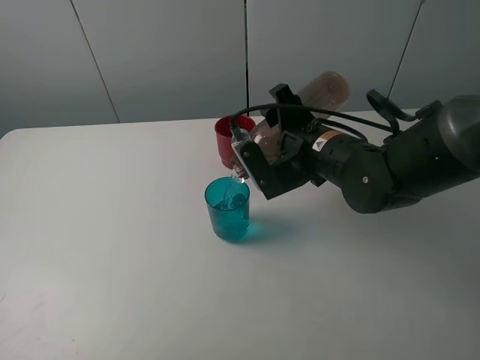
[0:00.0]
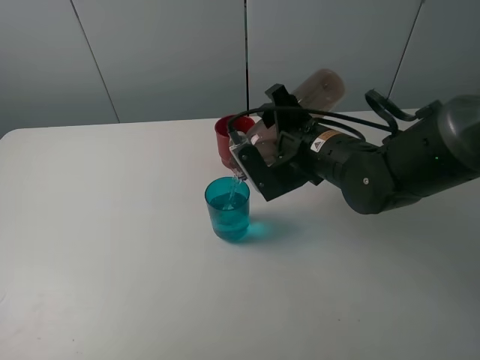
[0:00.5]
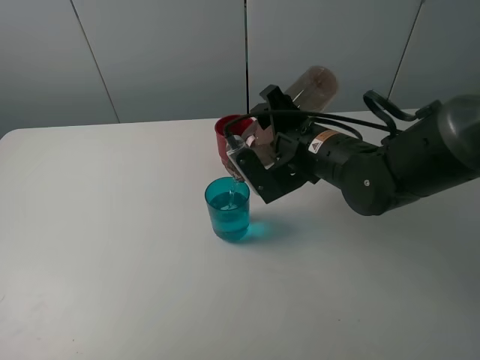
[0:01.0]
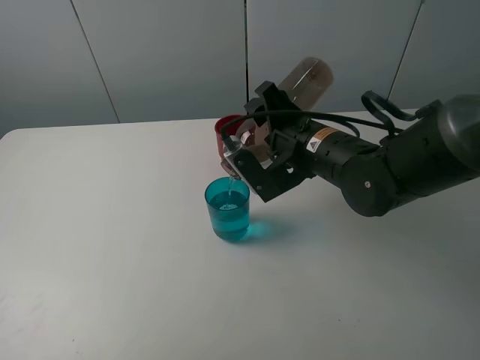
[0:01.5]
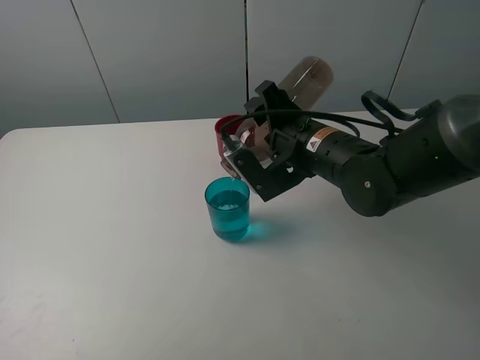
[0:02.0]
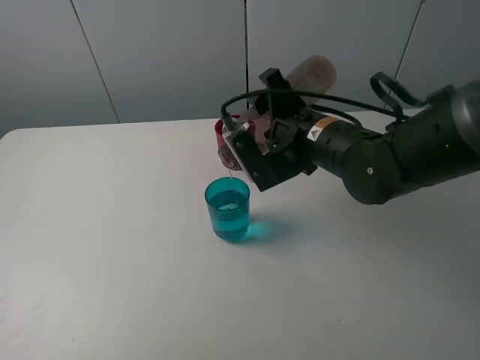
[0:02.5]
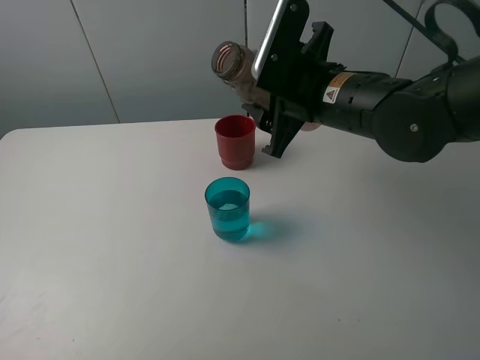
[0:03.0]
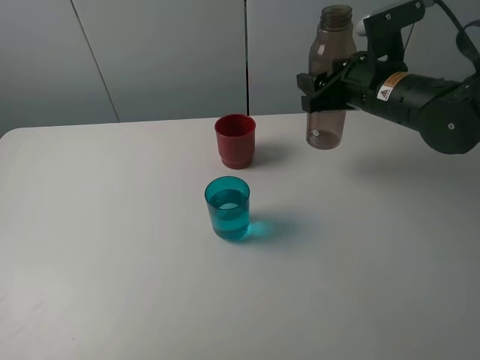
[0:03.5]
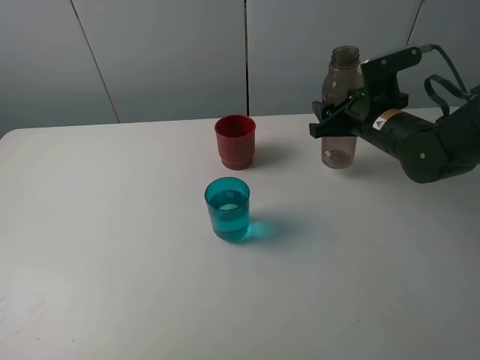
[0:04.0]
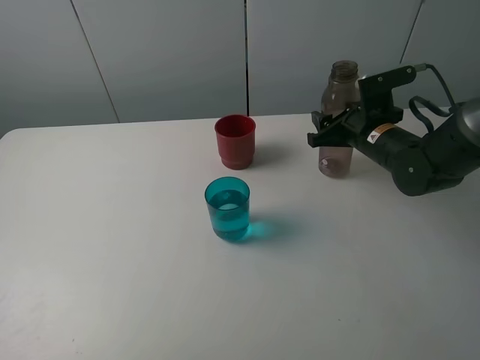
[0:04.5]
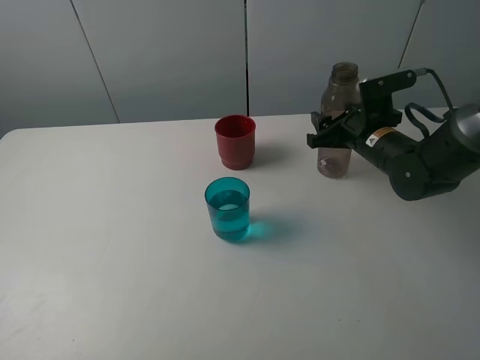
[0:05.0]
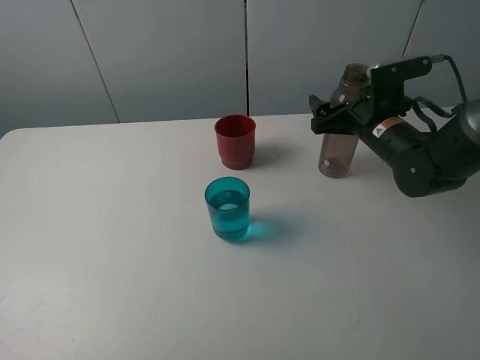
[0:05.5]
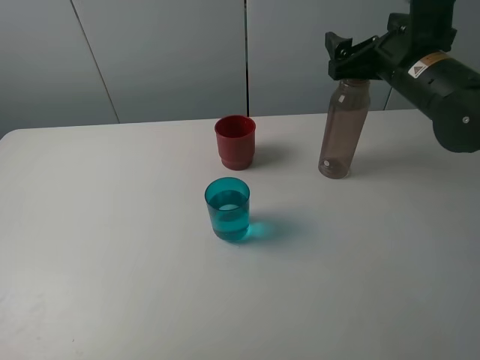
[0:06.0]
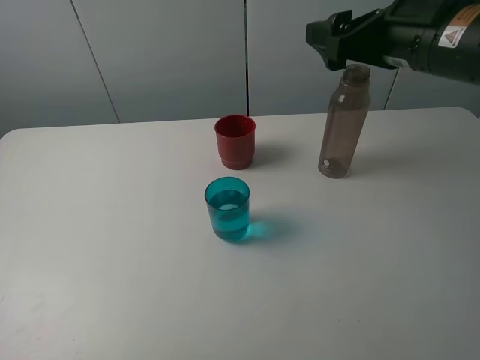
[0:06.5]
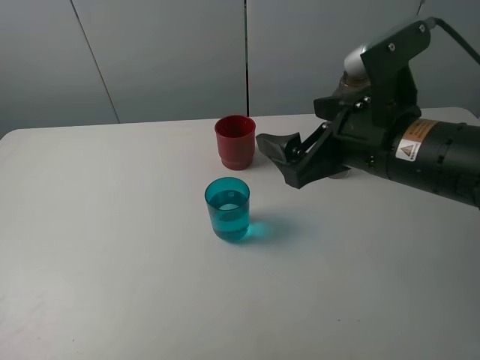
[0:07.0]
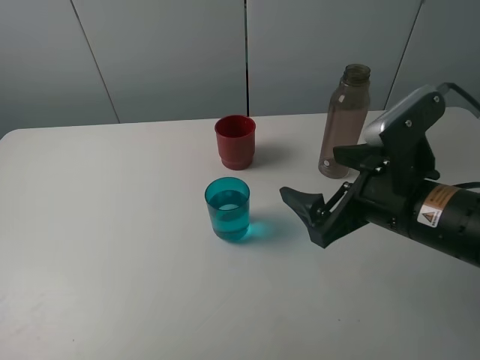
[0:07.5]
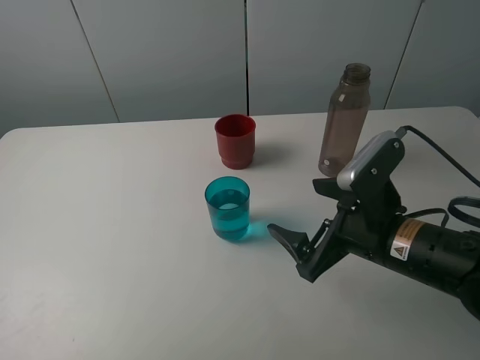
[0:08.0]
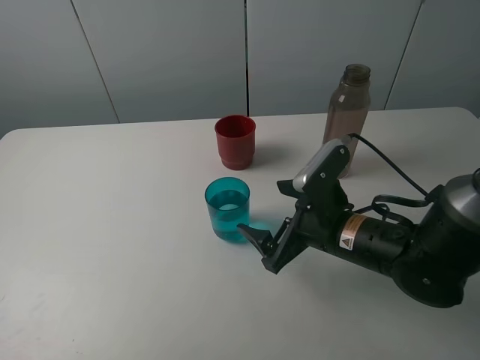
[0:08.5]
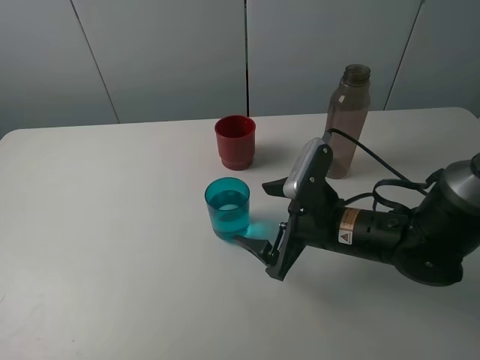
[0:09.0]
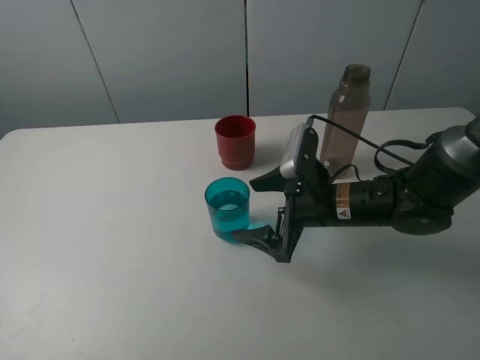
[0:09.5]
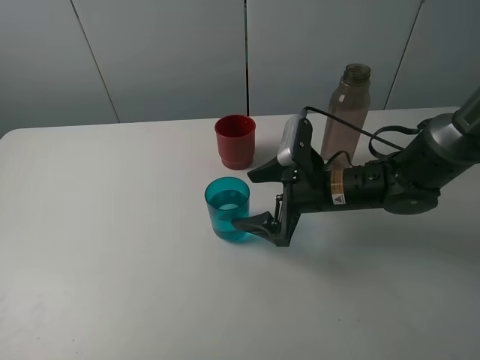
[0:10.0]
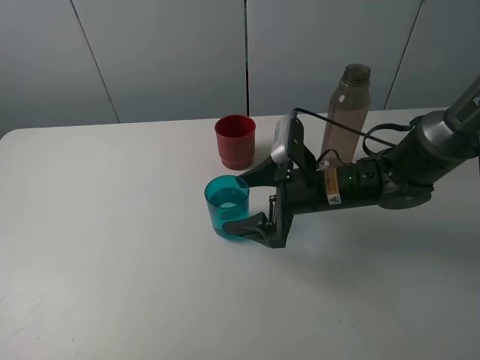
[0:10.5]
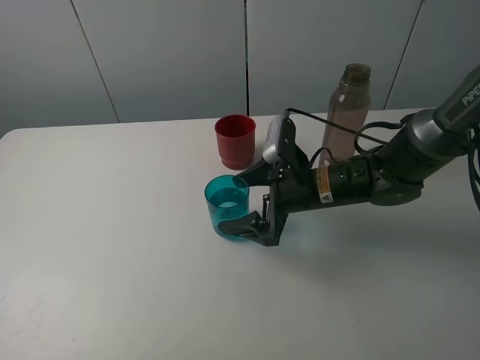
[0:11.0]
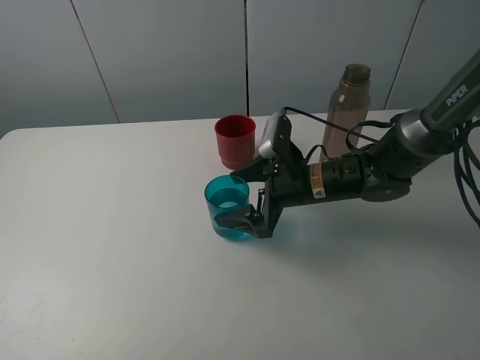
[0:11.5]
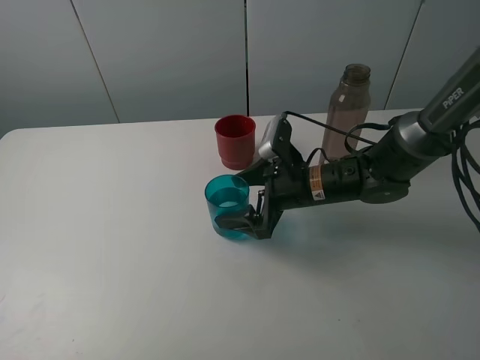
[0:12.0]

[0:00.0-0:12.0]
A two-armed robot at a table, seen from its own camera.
Task of the whole recording: pick up the bottle and pour water into the cup, then pick up the cup containing water and pour it into another cup.
Step, 0:00.0 to 0:02.0: Pour water from brown bottle to blue cup with the right gripper.
Step, 0:02.5 to 0:05.0: Place the brown bottle with the right gripper.
0:00.0 to 0:02.0: There are only small adjustments of the grippers.
0:02.0 to 0:04.0: The right gripper is displaced to the right and forward by about 15 cm.
0:04.0 to 0:06.0: The right gripper heads upward, covering about 10 cm, and opens up.
0:06.0 to 0:08.0: The right gripper shifts some 20 cm backward and downward.
0:08.0 to 0:10.0: The right gripper heads forward, covering about 10 cm.
0:10.0 to 0:12.0: The grippers make only small movements.

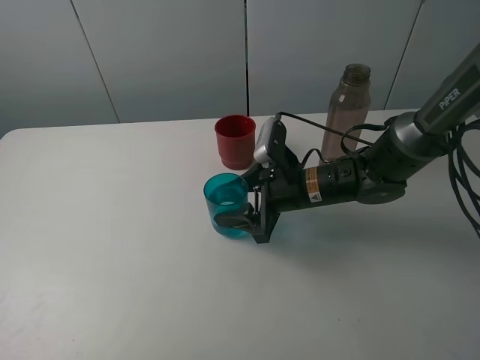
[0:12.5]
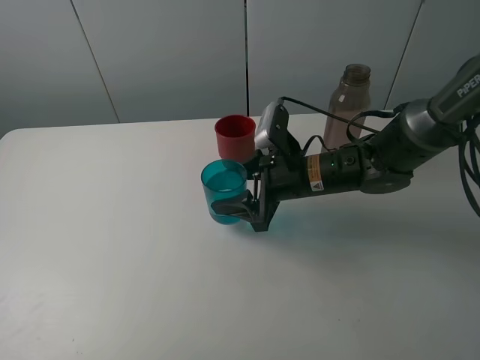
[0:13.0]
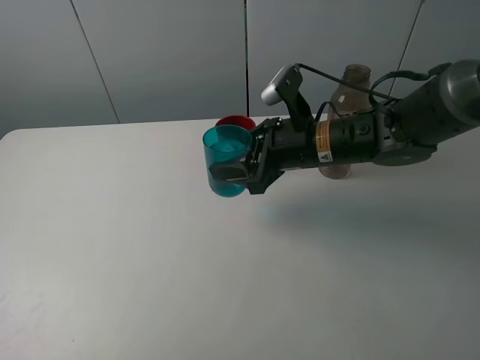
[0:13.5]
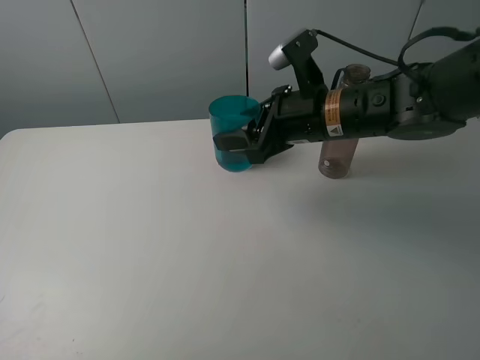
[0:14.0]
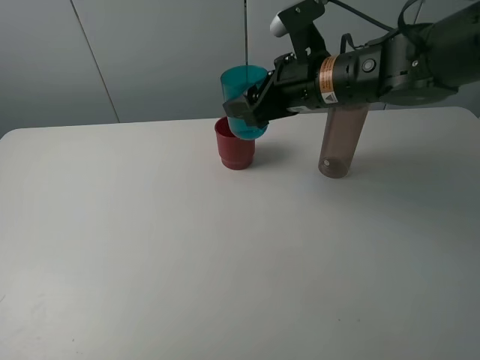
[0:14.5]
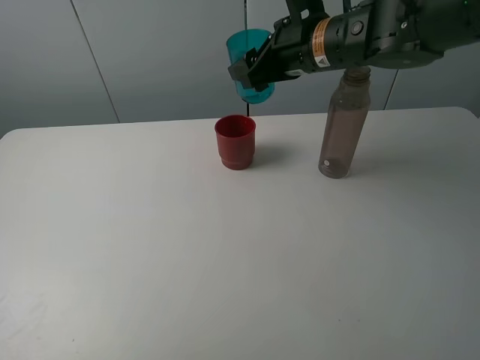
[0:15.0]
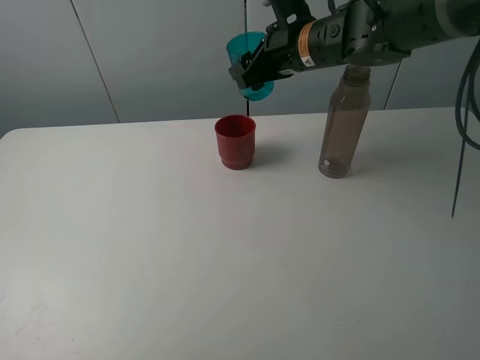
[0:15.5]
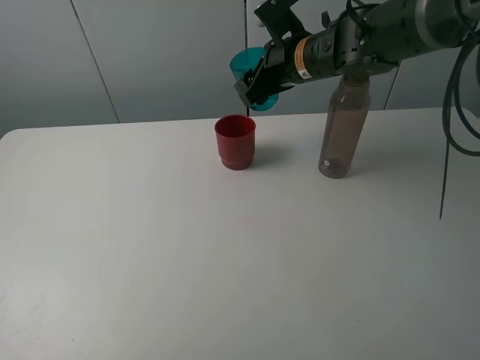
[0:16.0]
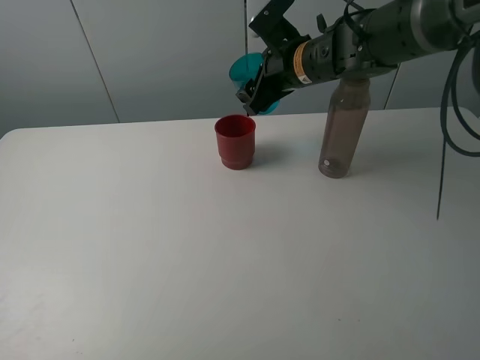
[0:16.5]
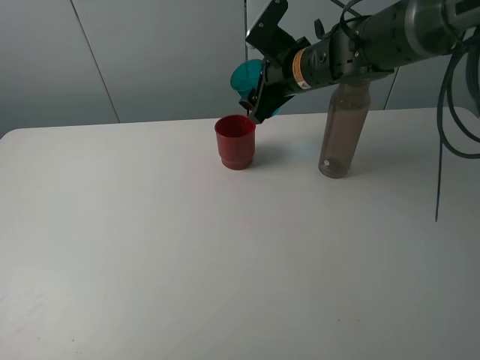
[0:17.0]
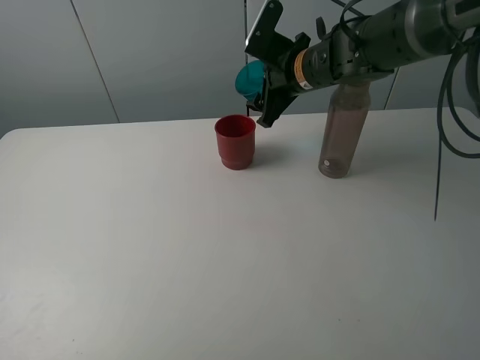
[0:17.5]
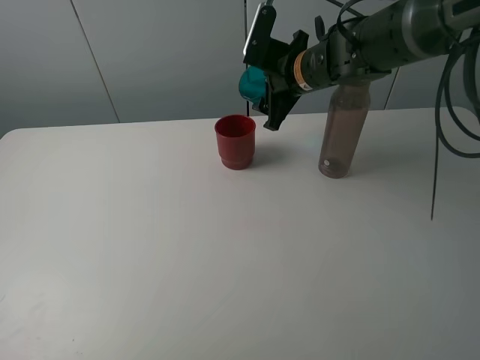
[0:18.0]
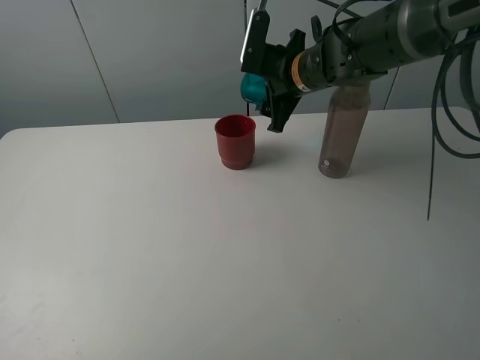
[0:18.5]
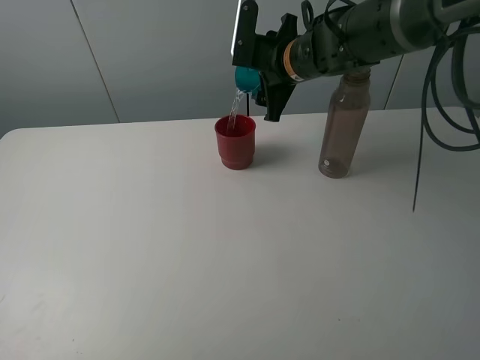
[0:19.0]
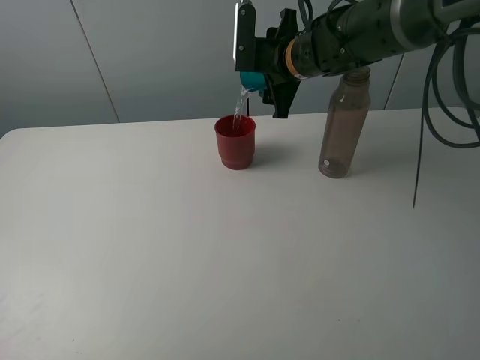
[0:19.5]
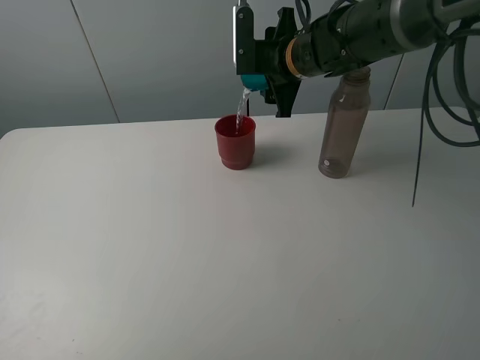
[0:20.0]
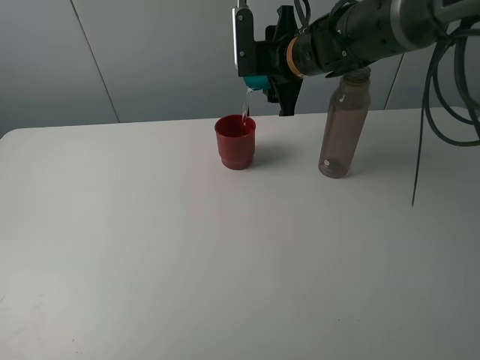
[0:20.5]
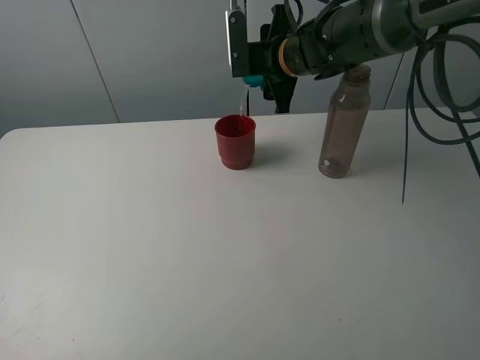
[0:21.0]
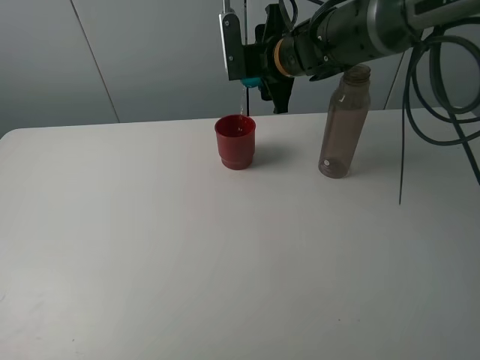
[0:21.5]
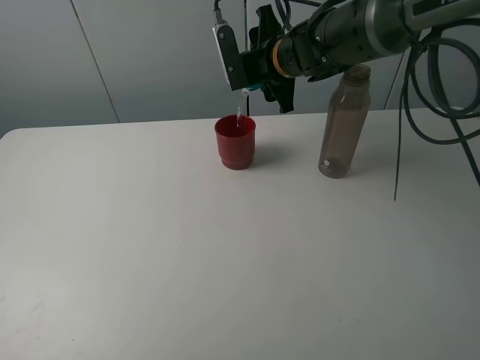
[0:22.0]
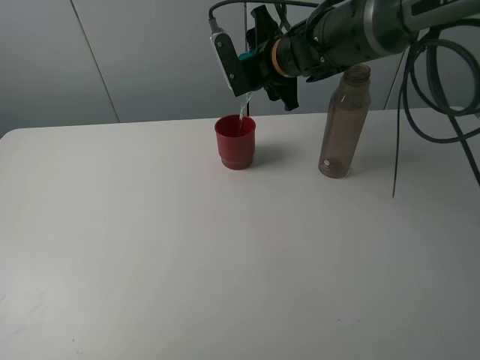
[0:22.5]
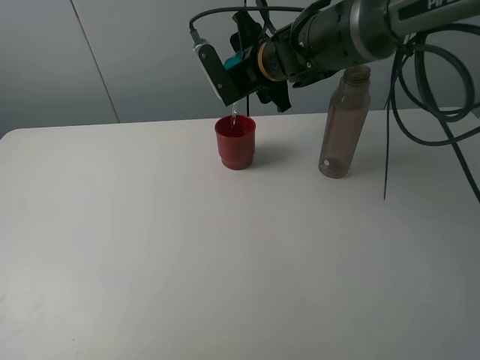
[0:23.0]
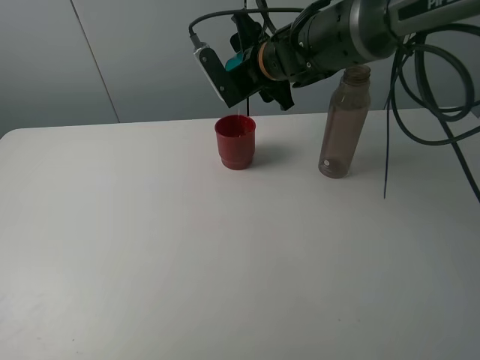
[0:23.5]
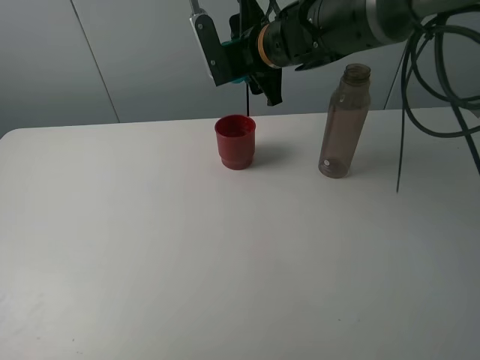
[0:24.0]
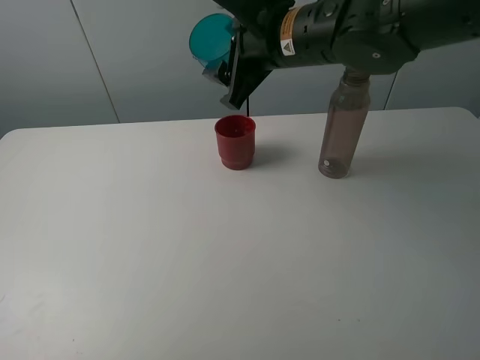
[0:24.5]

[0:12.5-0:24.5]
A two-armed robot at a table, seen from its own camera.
Task of the whole recording: pick up the bottle and pour water into the cup, then pick up the cup containing water and pour it into another cup.
Step, 0:12.5 to 0:24.0: Pour water from blue cup to red cup with the right gripper.
0:12.5 to 0:14.5: The right gripper moves upward, approximately 15 cm.
0:14.5 to 0:16.5: The right gripper heads forward, covering about 5 cm.
0:18.5 to 0:20.5: The grippers move only a little.
0:22.5 to 0:24.5: The right gripper heads backward, covering approximately 10 cm.

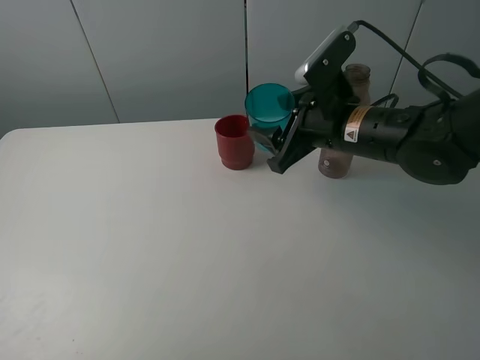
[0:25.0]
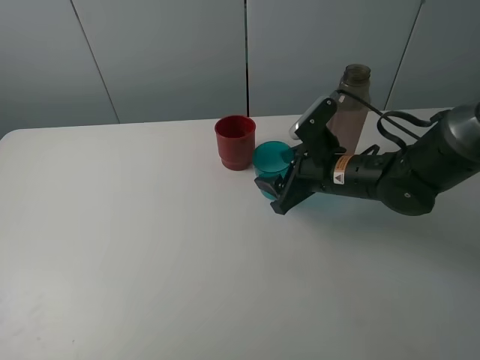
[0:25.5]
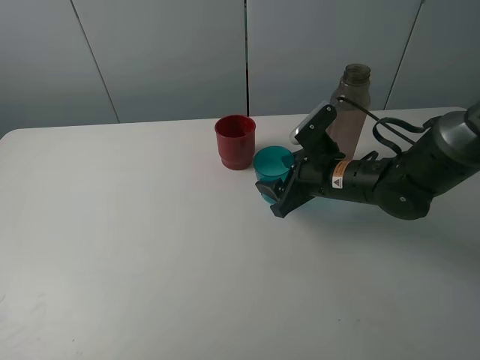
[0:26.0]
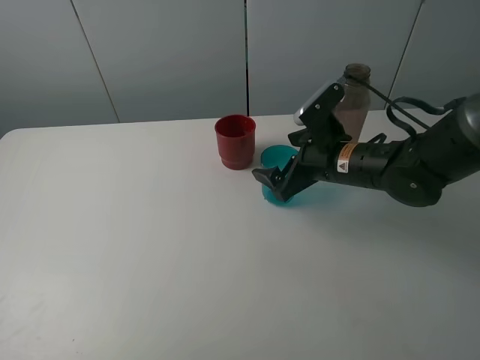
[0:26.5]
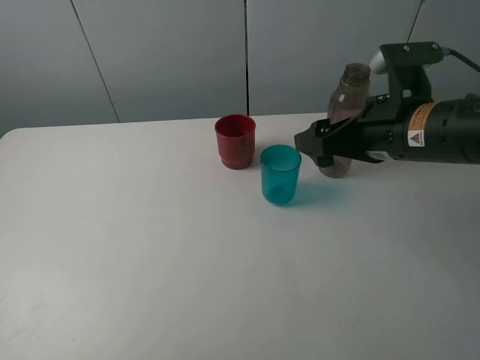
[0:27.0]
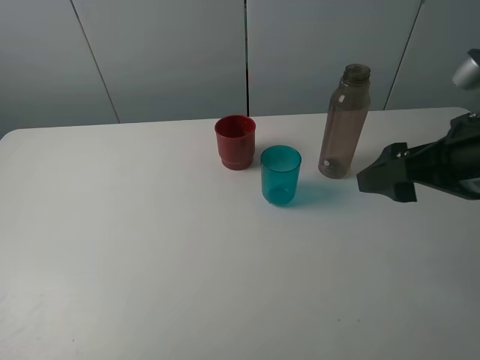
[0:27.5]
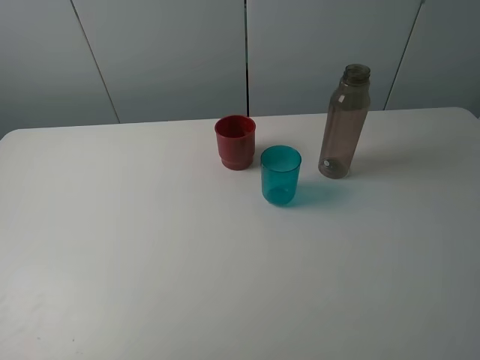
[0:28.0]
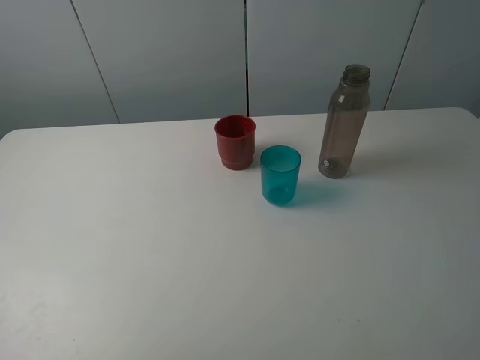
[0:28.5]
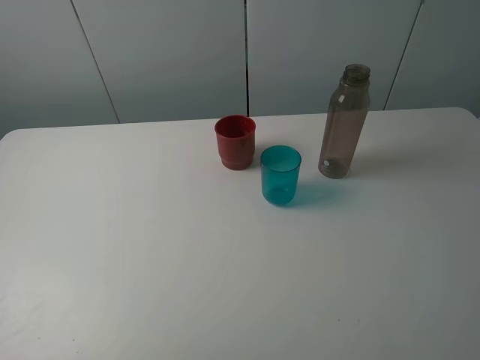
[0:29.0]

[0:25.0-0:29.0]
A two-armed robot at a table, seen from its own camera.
Task of the whole recording: pick up the bottle and pour water into the cup, then pick up the cup containing water and pour it into another cup.
0:25.0 to 0:27.0: The right gripper is displaced to the right and backward by roughly 10 cm, reaches some 10 cm downward, then returns, and opens its fingers.
0:27.0 to 0:29.0: The right gripper shifts some 25 cm backward and to the right.
